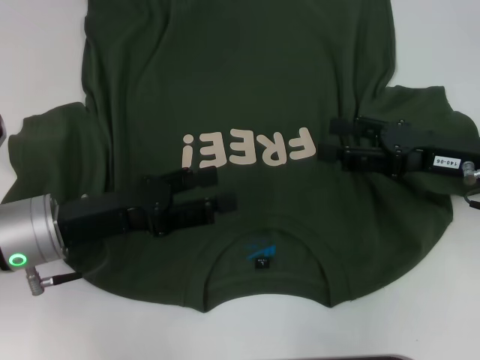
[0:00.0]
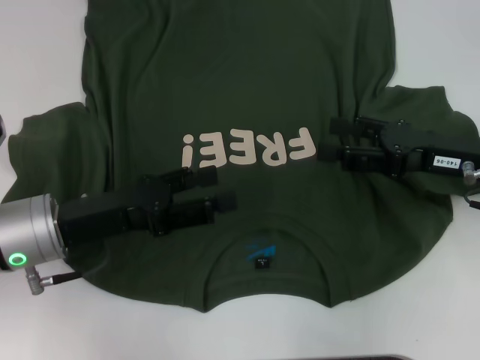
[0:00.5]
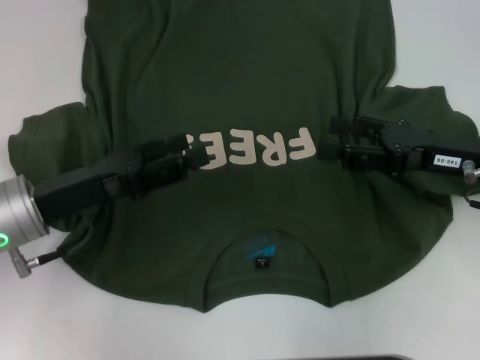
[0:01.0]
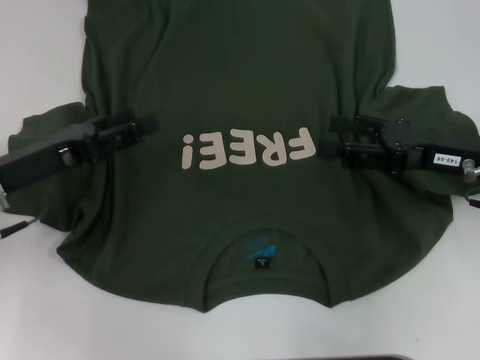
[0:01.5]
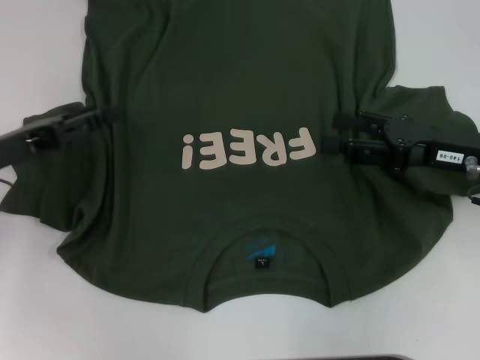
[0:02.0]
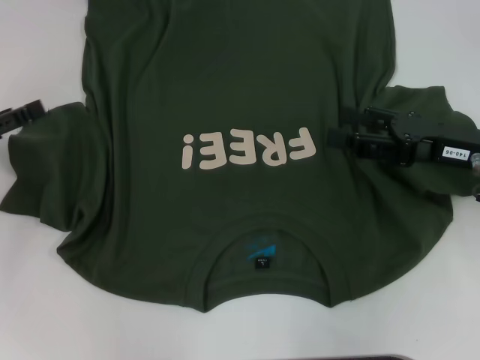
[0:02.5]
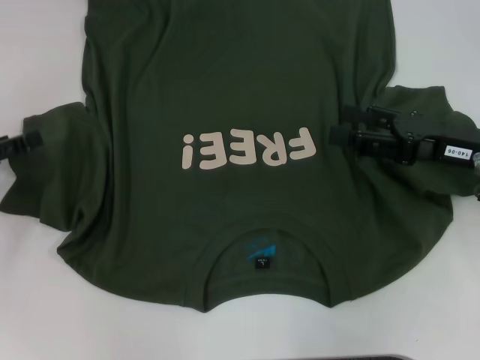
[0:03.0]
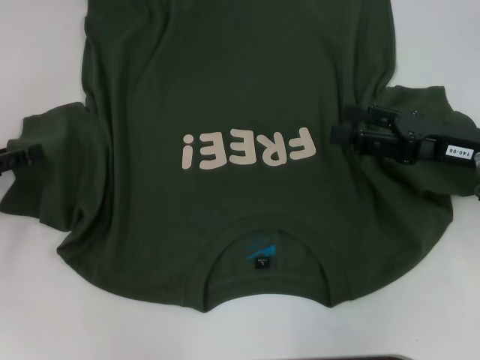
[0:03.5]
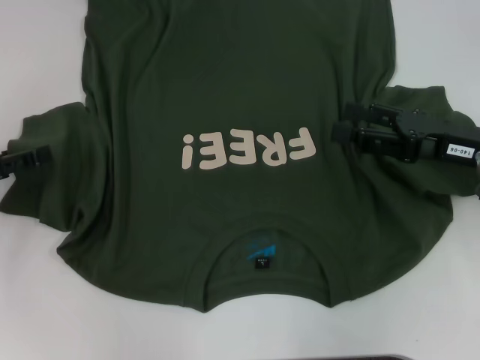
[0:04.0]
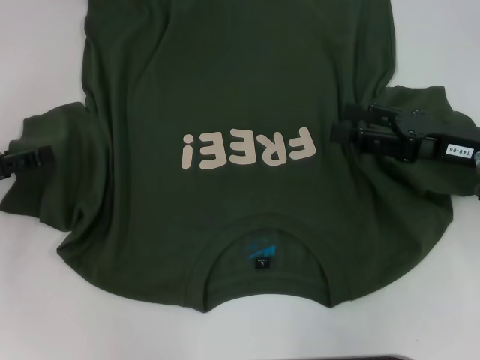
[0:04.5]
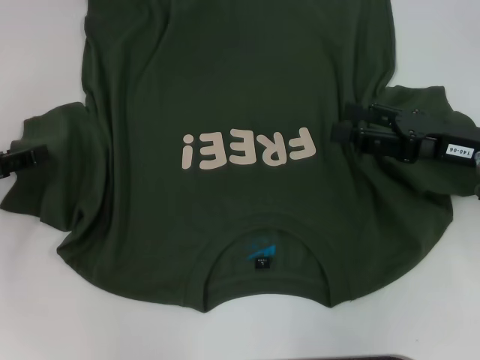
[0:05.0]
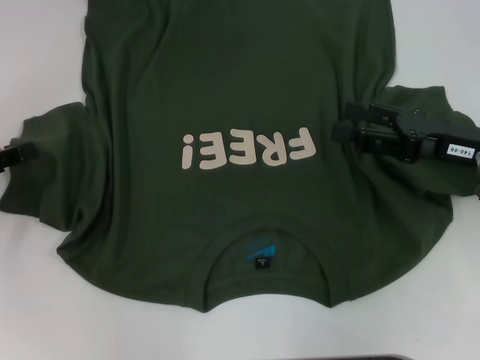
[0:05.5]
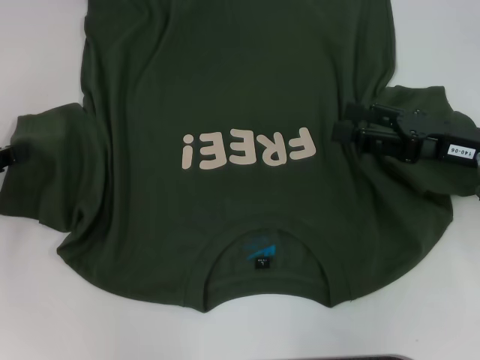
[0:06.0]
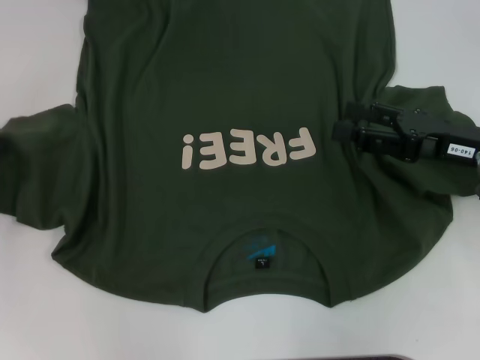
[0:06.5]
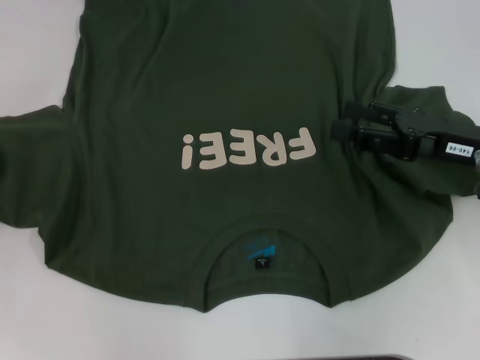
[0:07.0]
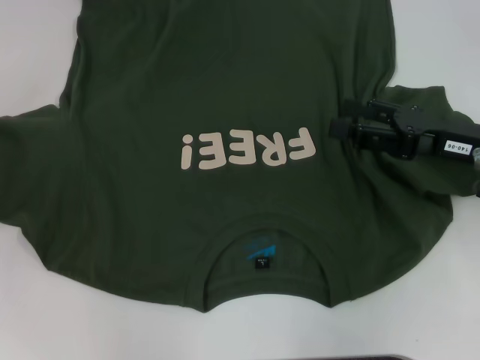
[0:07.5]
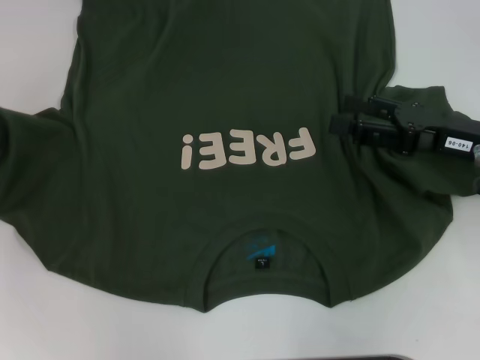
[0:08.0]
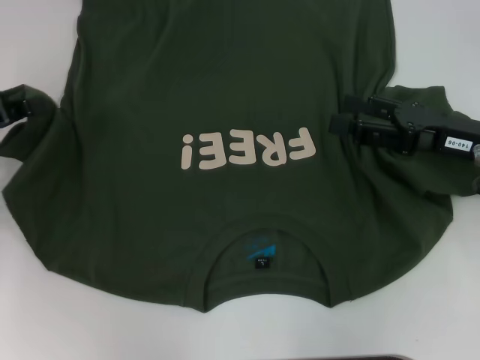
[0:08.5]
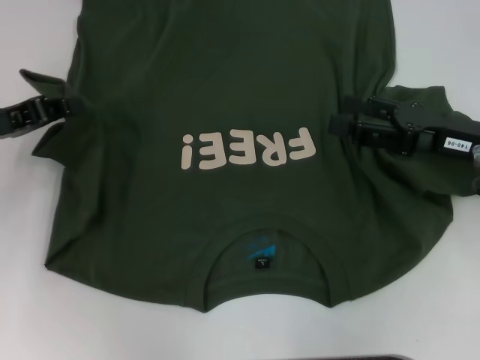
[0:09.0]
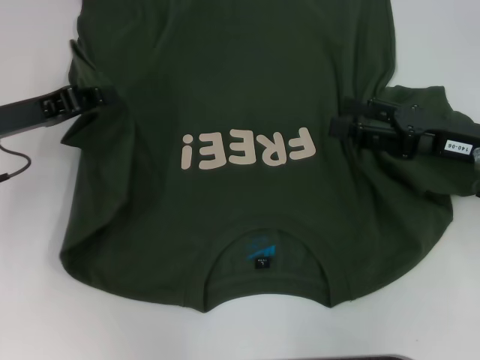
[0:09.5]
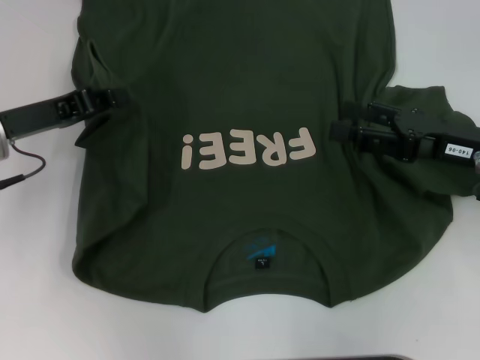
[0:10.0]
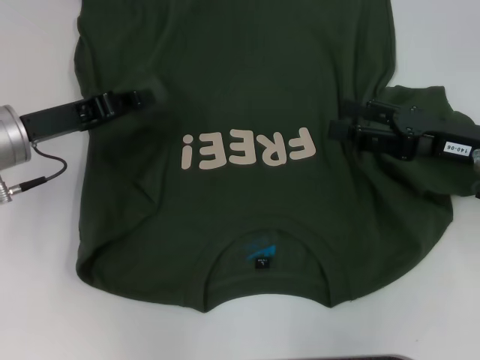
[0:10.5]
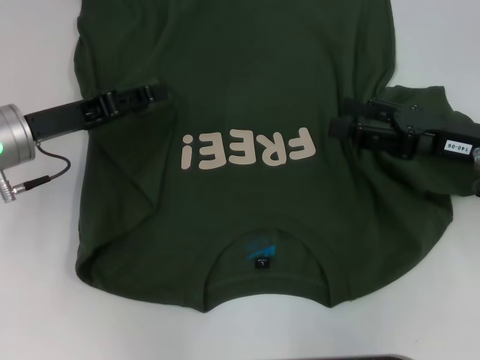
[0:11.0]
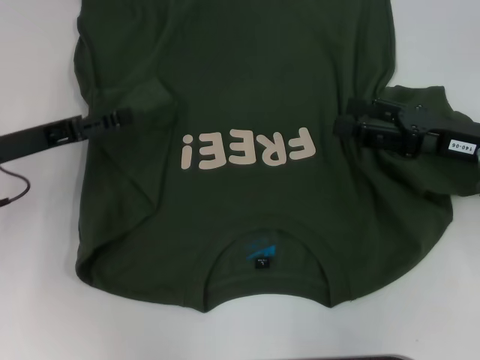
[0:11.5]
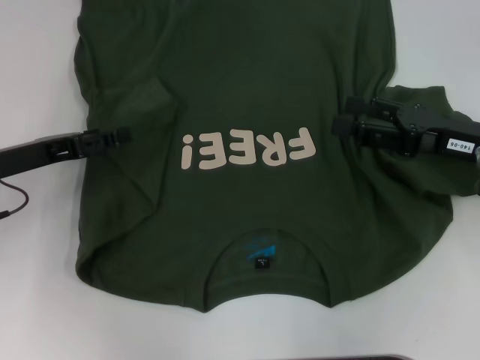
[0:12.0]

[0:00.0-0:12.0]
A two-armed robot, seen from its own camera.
0:00.0 to 0:02.0: The left gripper travels to the left by approximately 10 cm.
0:02.0 to 0:04.0: The left gripper is displaced to the left by some 5 cm.
0:04.0 to 0:06.0: The left gripper closes its fingers.
0:06.0 to 0:08.0: The grippers move only a little.
0:08.0 to 0:10.0: The left gripper heads to the right, covering about 10 cm.
0:10.0 to 0:12.0: The left gripper opens up.

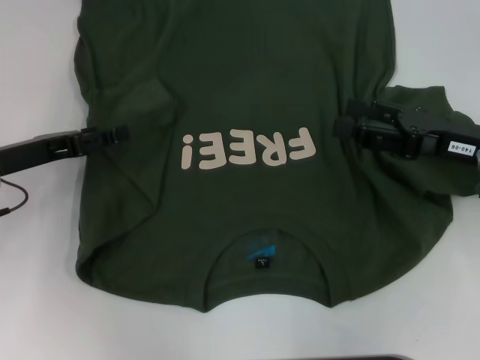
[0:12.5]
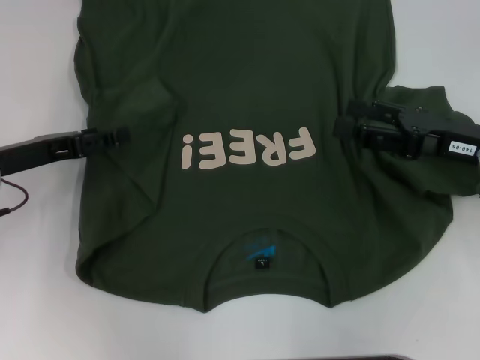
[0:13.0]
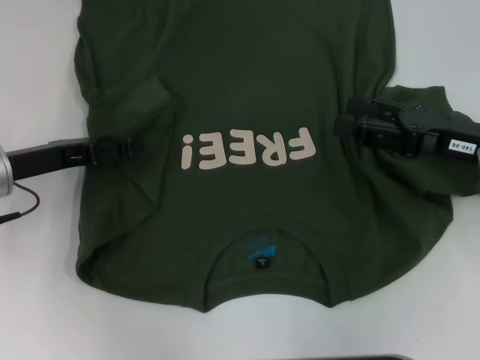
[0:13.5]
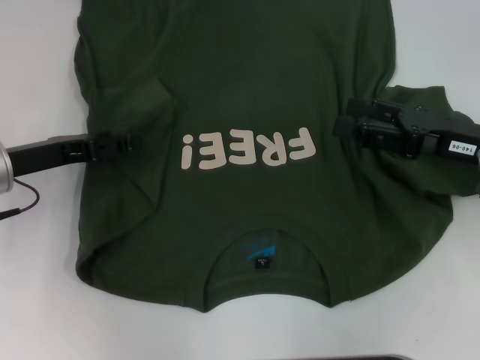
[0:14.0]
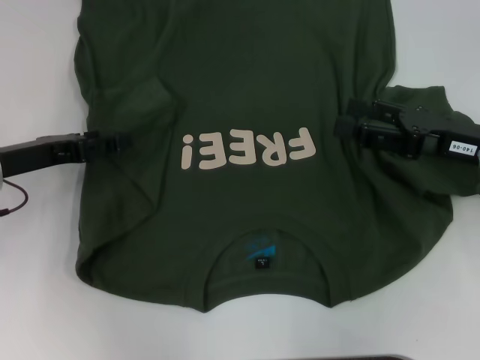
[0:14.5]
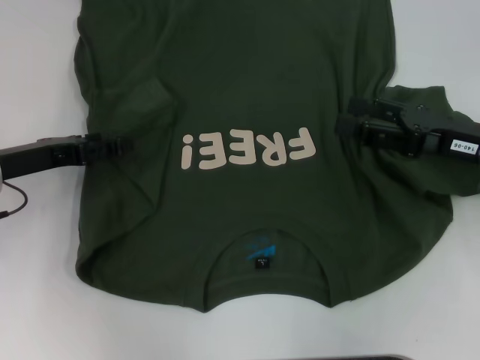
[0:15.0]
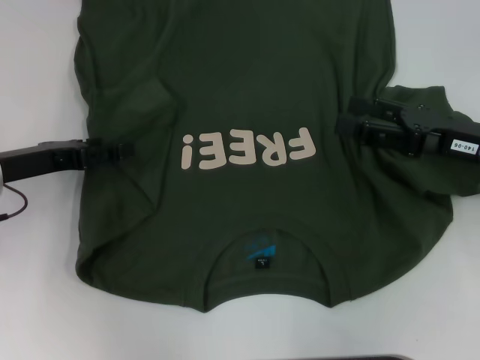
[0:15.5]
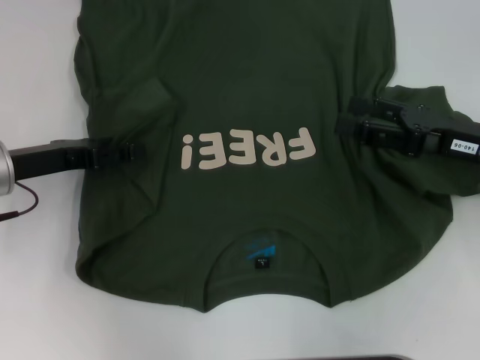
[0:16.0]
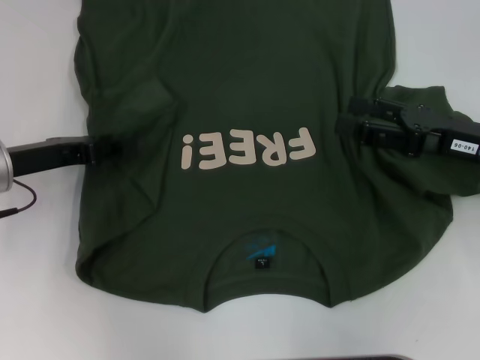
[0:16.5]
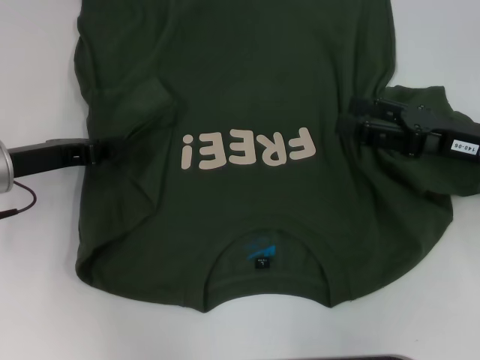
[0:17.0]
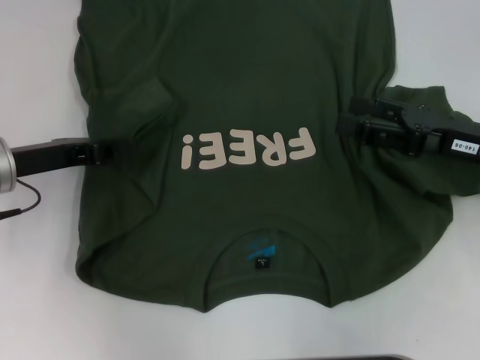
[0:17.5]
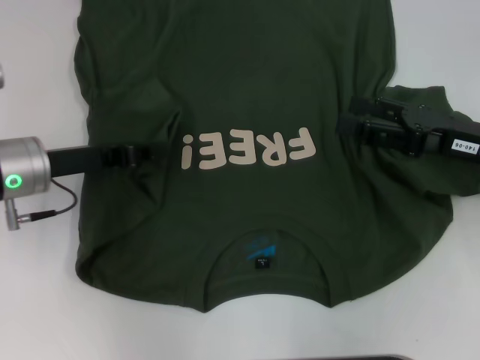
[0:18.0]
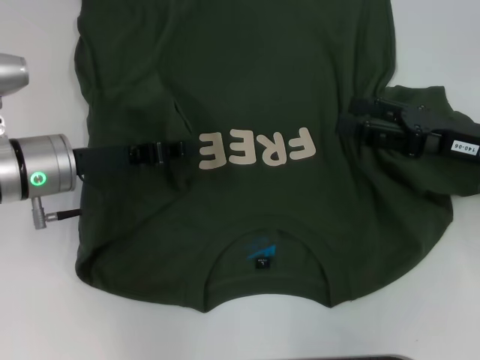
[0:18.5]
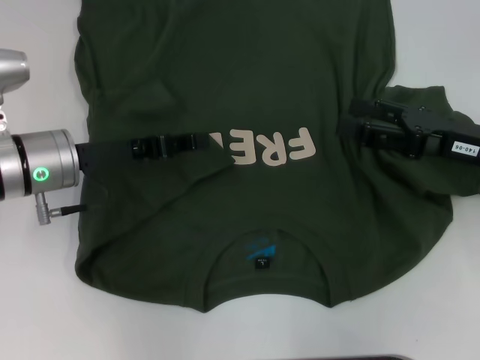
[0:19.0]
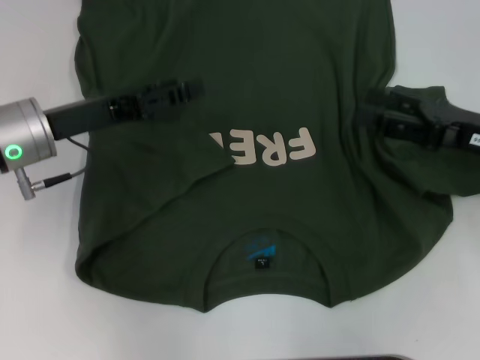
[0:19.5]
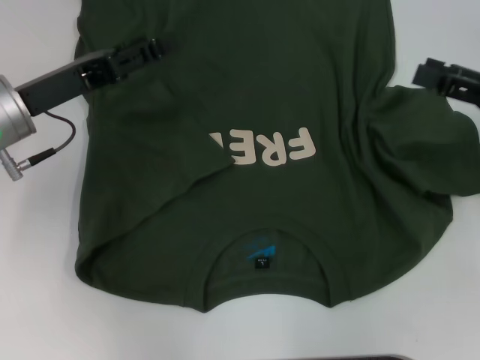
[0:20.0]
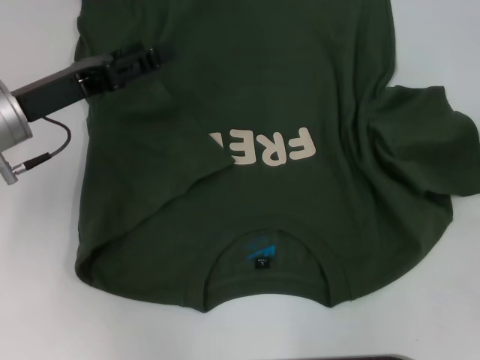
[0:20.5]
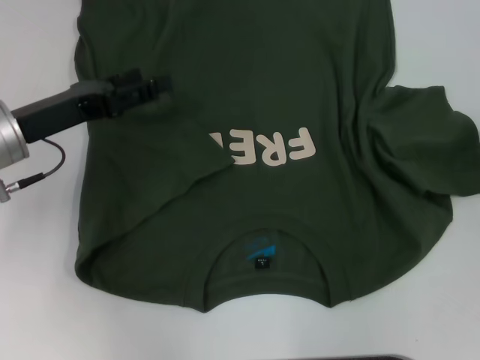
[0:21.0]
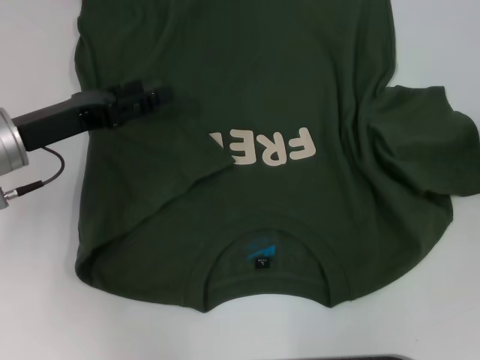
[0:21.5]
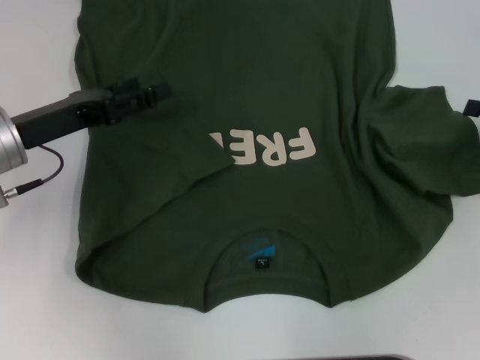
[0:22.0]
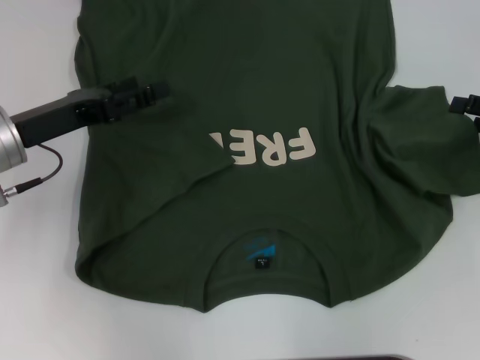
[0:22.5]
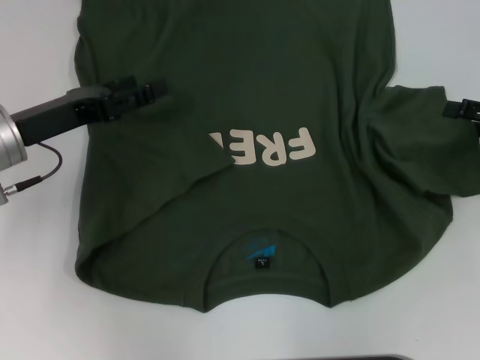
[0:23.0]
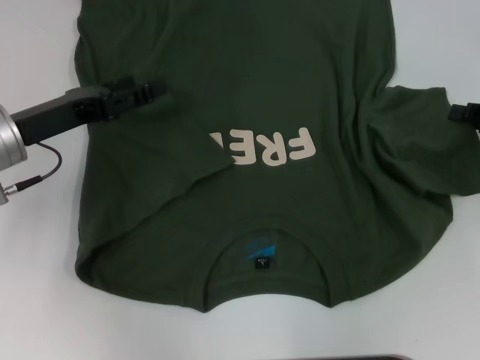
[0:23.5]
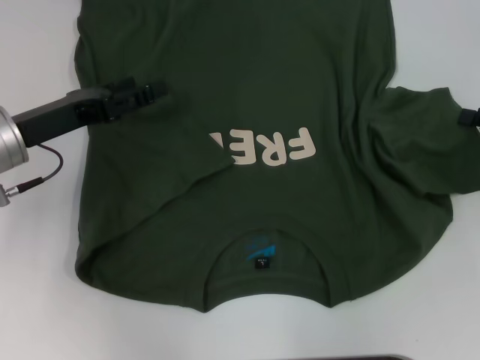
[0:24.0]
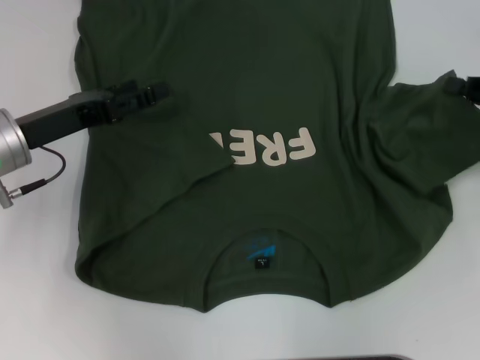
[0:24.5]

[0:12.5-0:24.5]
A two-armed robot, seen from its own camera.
Step, 0:12.5 to 0:18.5: Fold the bottom left sleeve with your left hand.
0:12.5 to 0:14.5: Neither gripper changes place.
0:14.5 to 0:16.5: The two grippers keep their place.
0:16.5 to 0:18.5: The left gripper goes some 5 cm to the right, and closes up.
0:18.5 to 0:20.5: The right gripper shifts roughly 10 cm to the right; the left gripper opens its fingers.
0:22.5 to 0:24.5: The right gripper closes up.

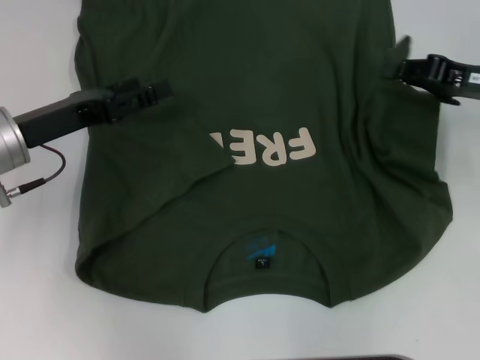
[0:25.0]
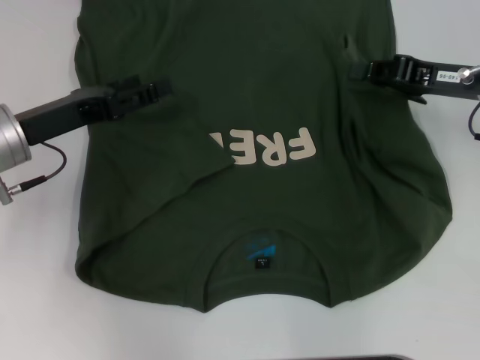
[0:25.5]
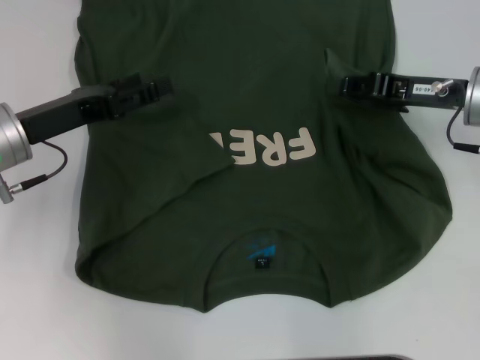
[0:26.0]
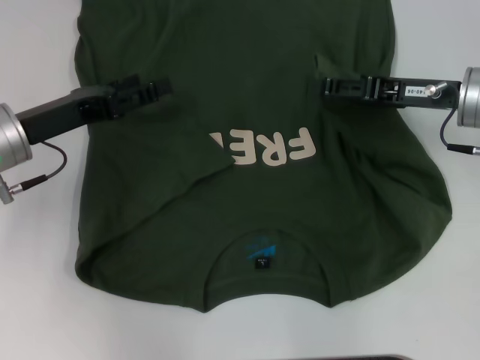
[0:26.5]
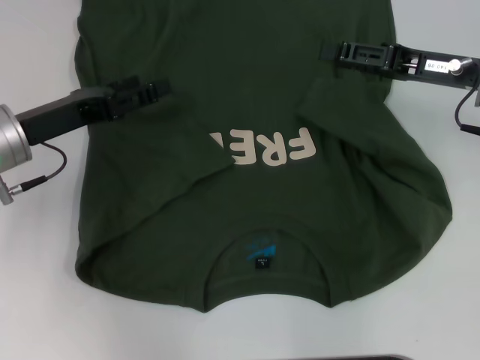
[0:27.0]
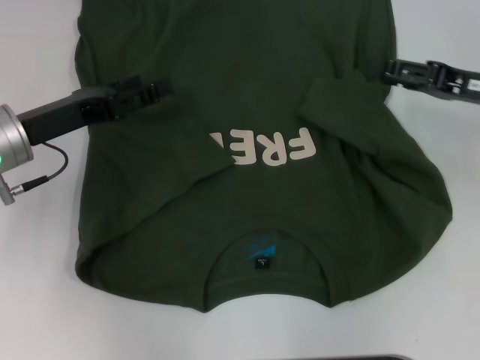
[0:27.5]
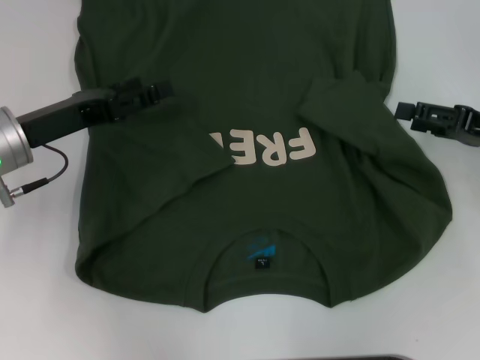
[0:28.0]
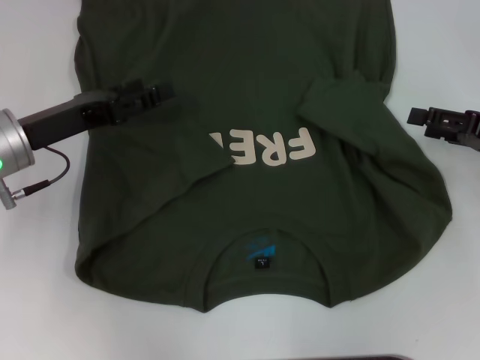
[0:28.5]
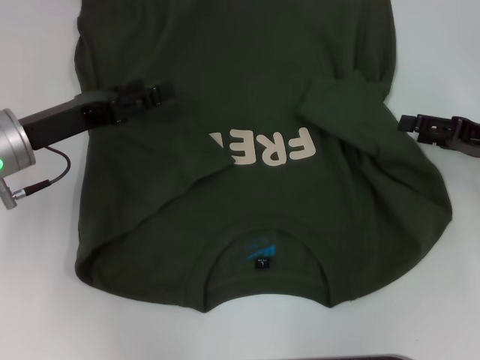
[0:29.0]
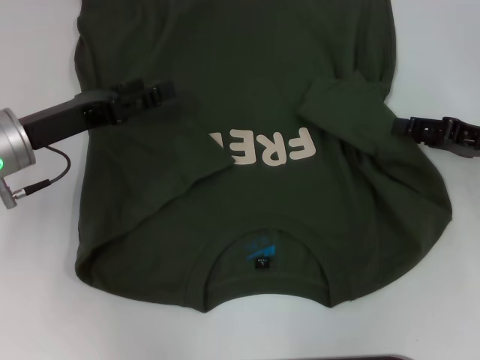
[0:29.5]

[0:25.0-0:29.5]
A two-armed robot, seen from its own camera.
0:25.0 to 0:27.0: The right gripper opens its fingers.
0:27.0 to 0:29.5: The right gripper shifts some 10 cm to the right and downward.
